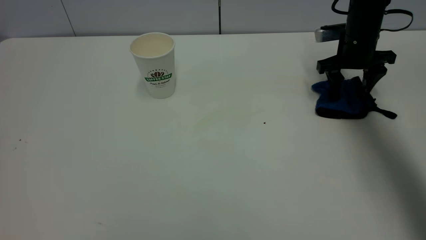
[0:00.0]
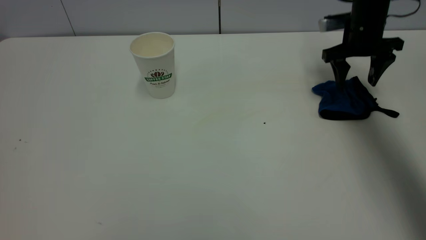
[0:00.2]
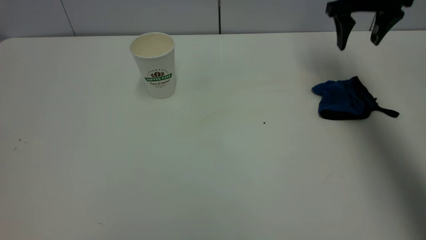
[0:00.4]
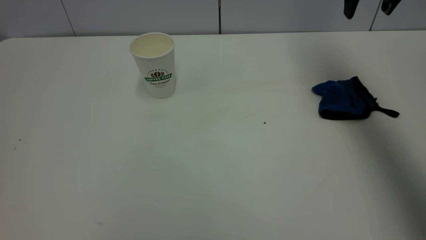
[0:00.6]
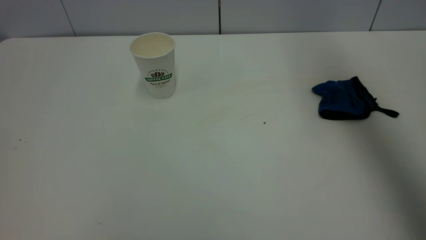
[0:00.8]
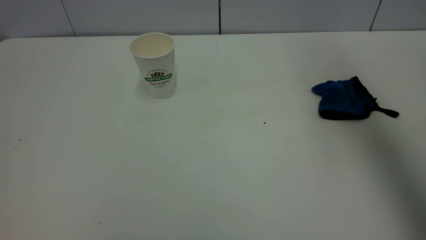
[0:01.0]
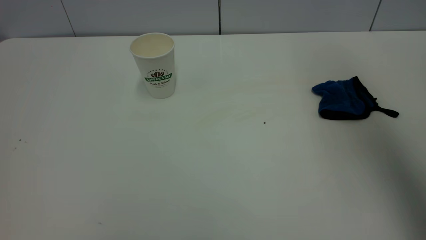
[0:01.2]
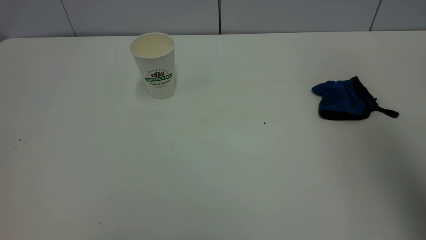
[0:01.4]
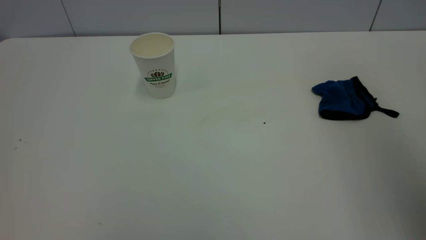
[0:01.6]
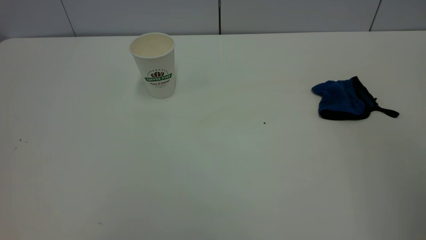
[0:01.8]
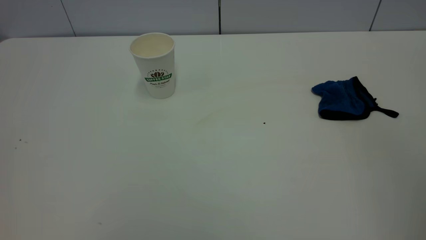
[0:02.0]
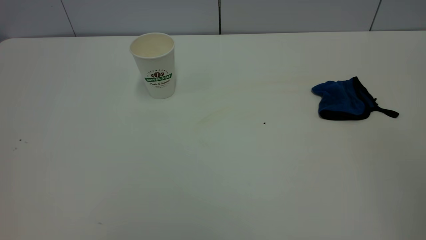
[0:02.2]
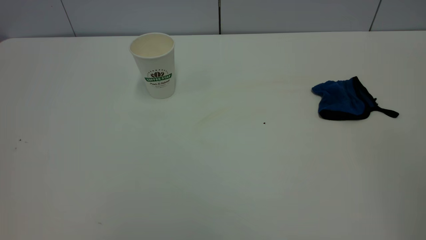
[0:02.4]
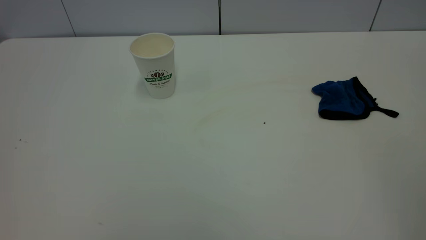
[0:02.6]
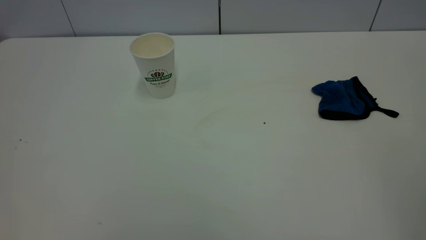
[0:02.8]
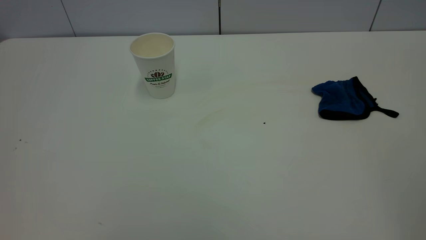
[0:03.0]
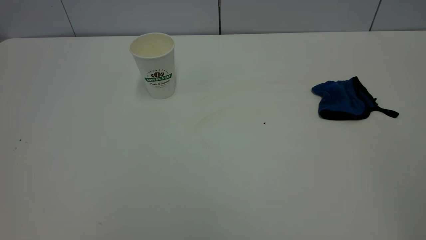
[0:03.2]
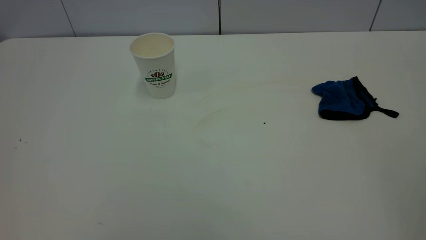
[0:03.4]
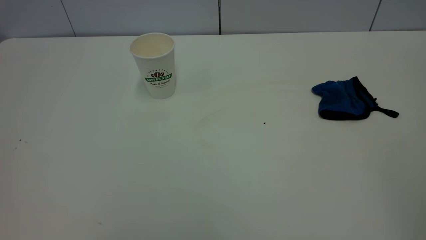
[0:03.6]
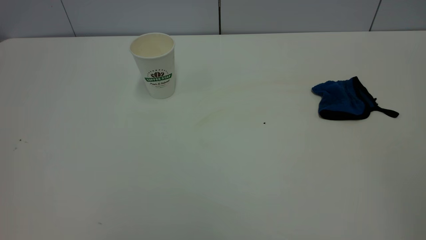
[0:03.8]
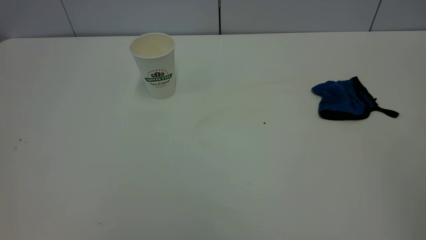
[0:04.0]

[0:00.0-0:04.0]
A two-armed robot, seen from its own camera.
Task of the whole recording: the left gripper pick up the fallen cup and place it upright, the right gripper grasp the blue rag and wipe the tea stain on the table, the right gripper put the blue rag back in its original position.
0:00.0 to 0:01.4: The right gripper heads upward and backward, covering approximately 40 cm.
0:01.4 to 0:02.6: The right gripper moves backward, some 25 cm.
